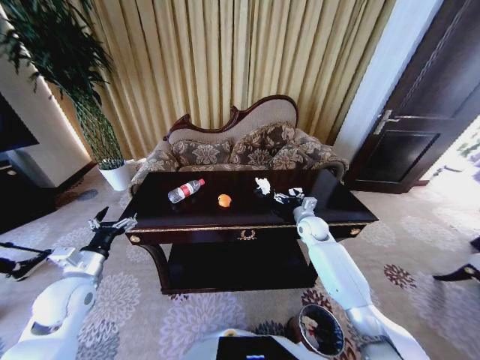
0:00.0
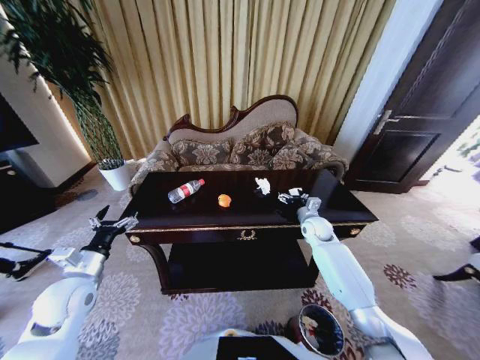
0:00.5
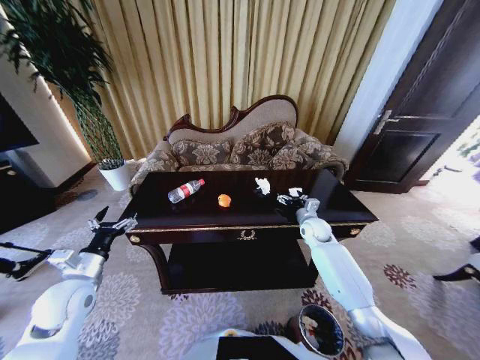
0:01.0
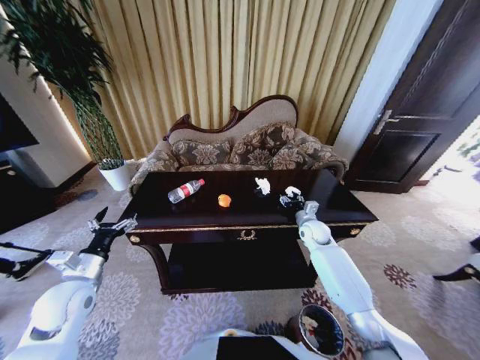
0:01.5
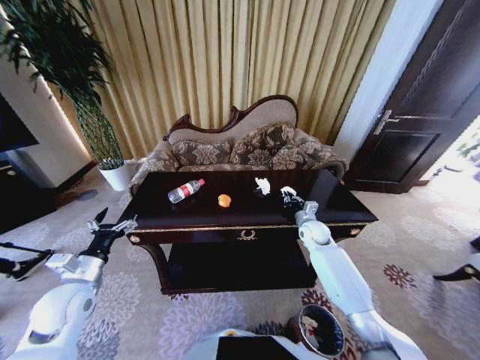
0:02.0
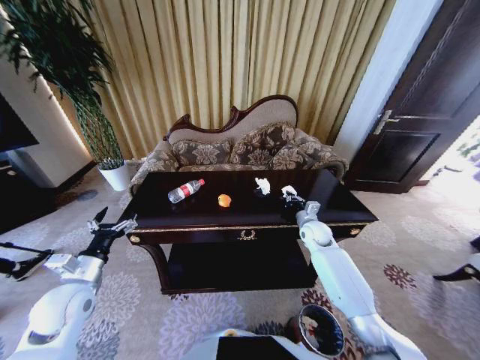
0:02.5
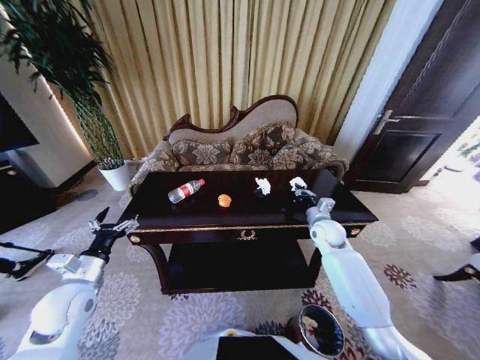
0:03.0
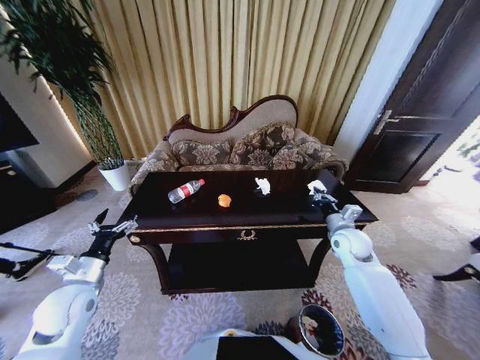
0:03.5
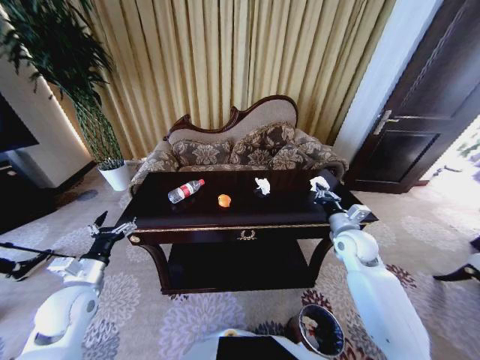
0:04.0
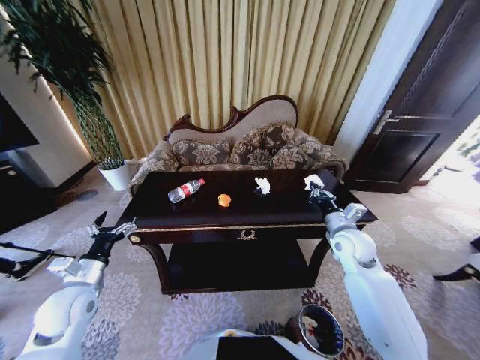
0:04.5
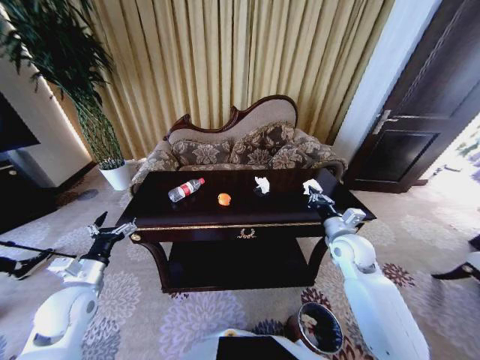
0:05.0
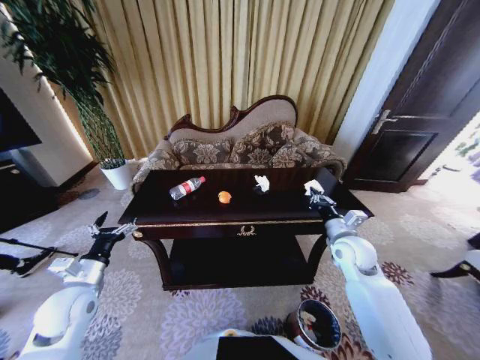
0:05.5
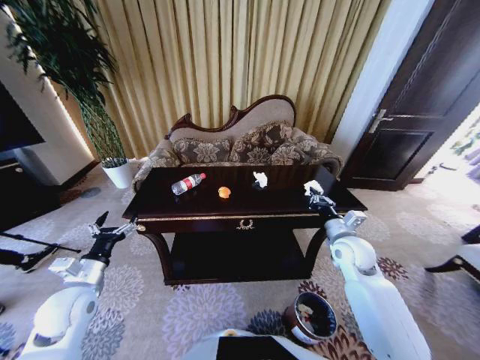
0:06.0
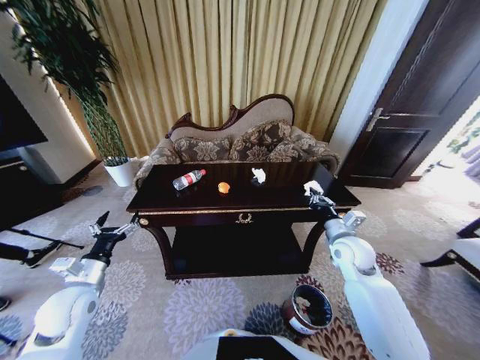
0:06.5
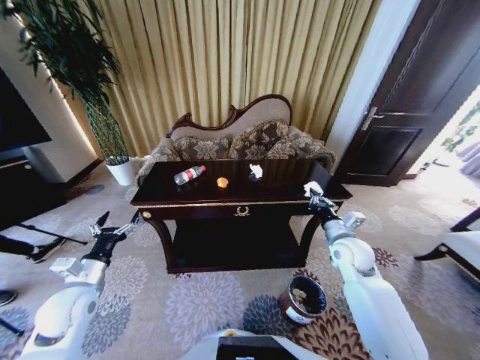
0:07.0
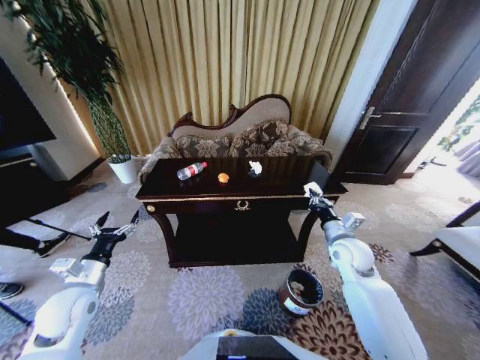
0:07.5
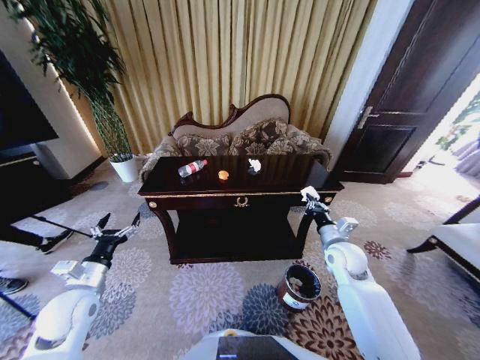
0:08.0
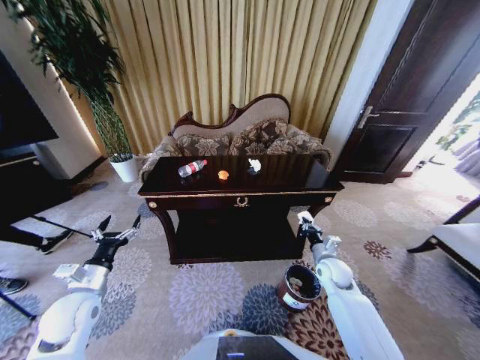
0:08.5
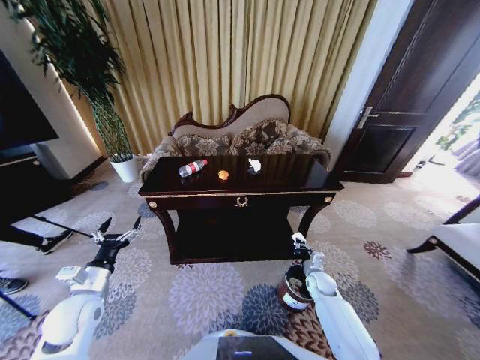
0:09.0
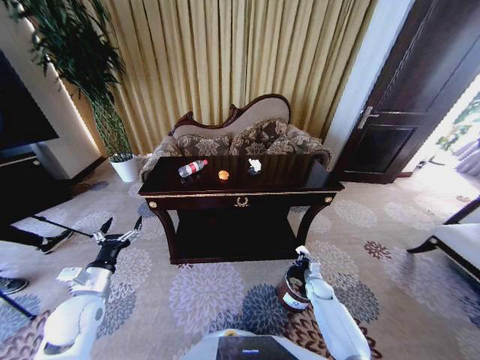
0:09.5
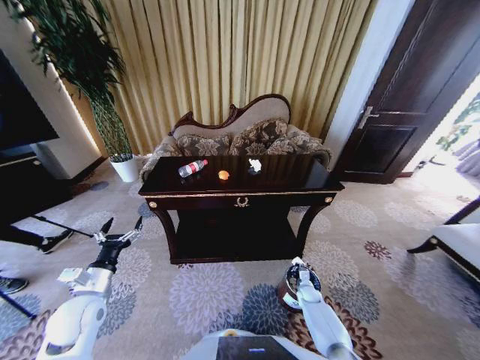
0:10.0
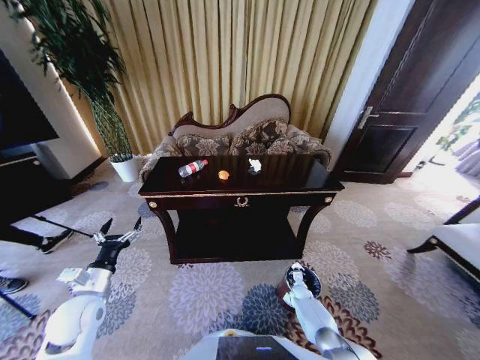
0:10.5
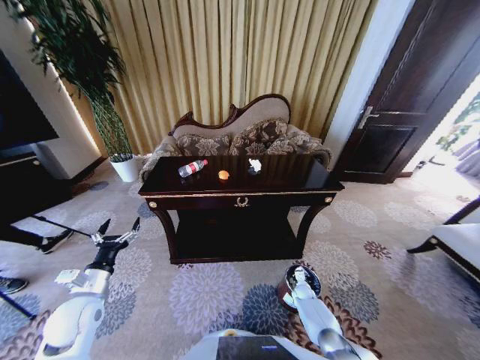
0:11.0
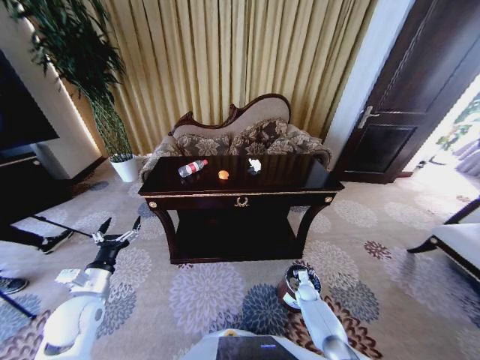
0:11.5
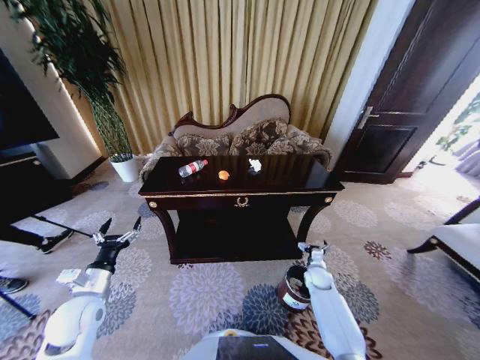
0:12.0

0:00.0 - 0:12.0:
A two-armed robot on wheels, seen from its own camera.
Task of the whole recording: Move to the front of the table and place the trash on the table into the trash bin.
0:00.0 - 0:02.0: The right gripper closes.
0:02.0 - 0:04.0: The right gripper goes some 15 cm backward and upward.
0:08.0 - 0:10.0: The right gripper heads downward, covering approximately 35 cm.
0:10.0 - 0:12.0: The right gripper is displaced upward by roughly 15 cm, and opens up.

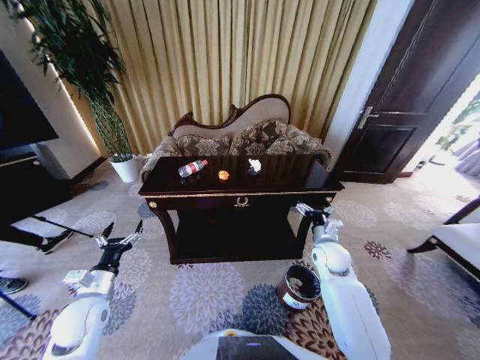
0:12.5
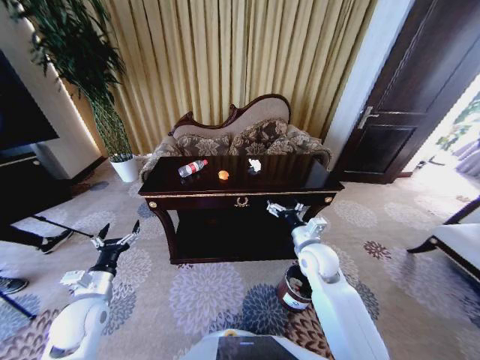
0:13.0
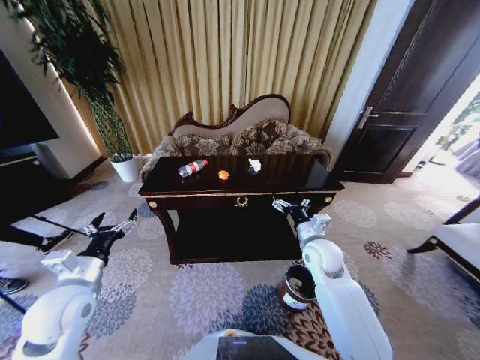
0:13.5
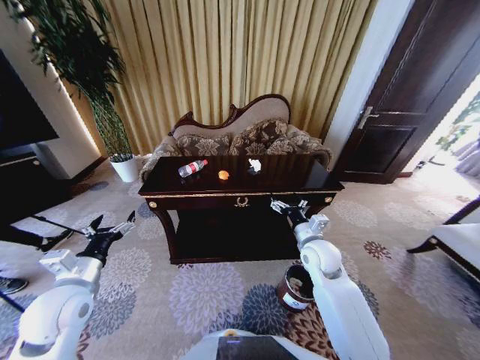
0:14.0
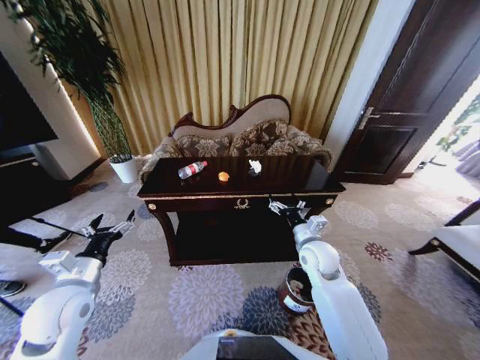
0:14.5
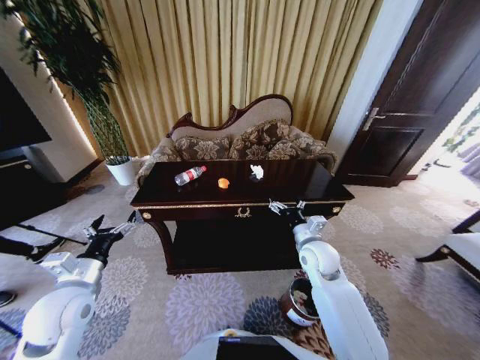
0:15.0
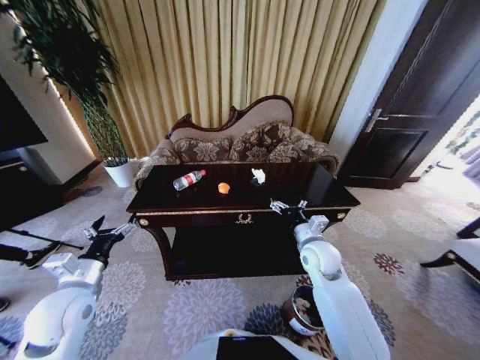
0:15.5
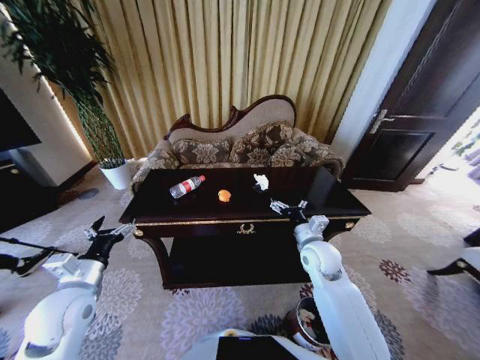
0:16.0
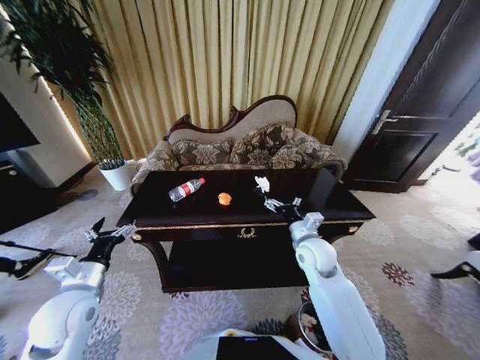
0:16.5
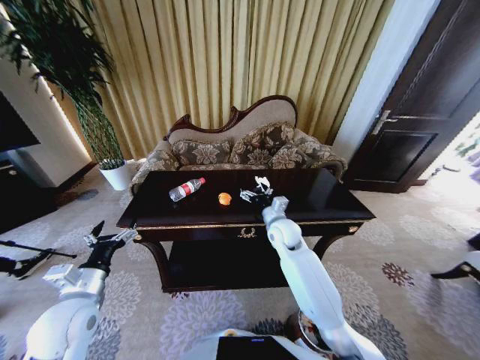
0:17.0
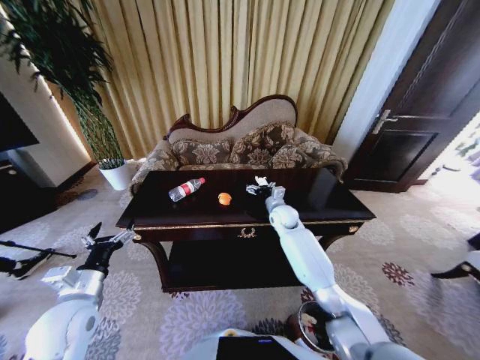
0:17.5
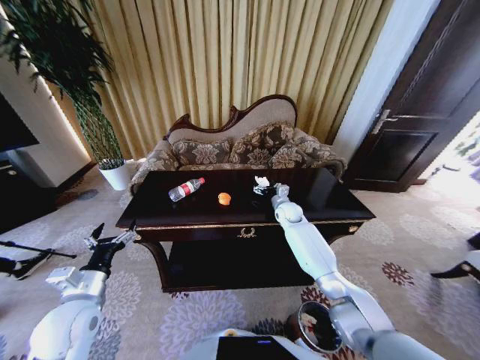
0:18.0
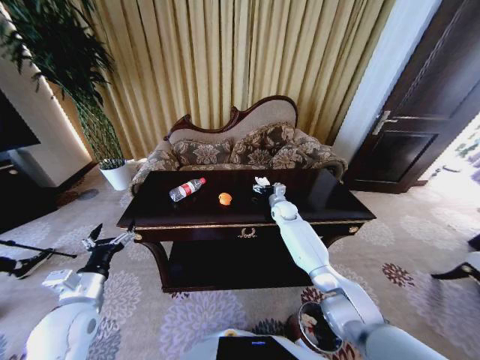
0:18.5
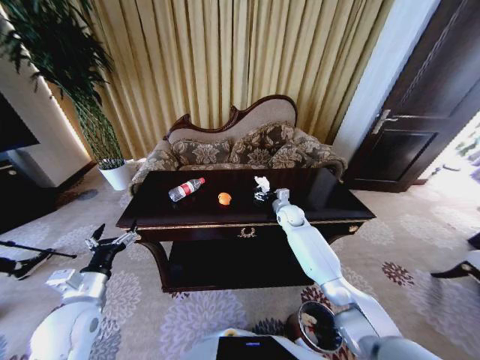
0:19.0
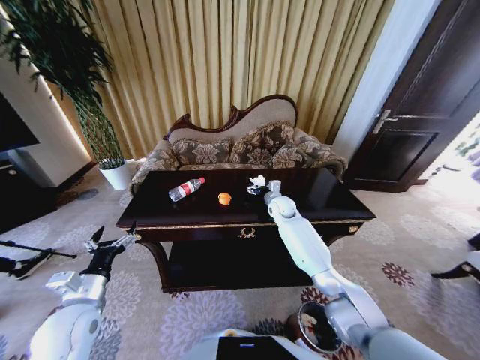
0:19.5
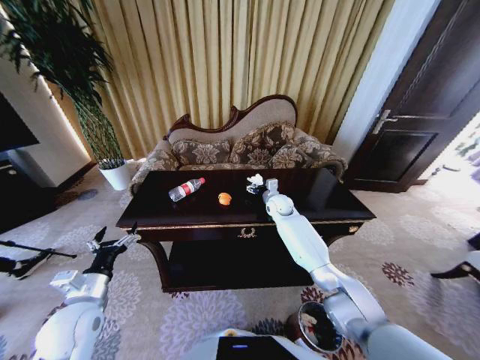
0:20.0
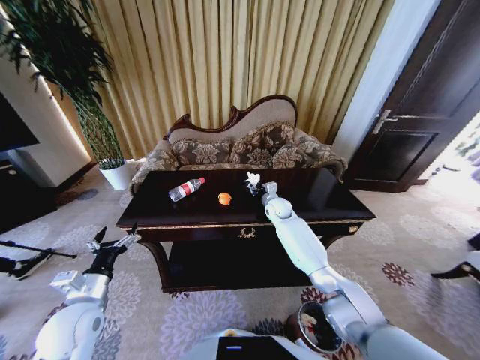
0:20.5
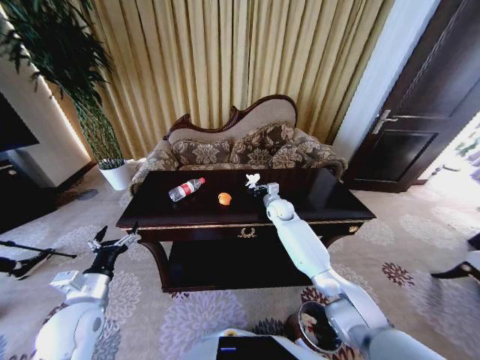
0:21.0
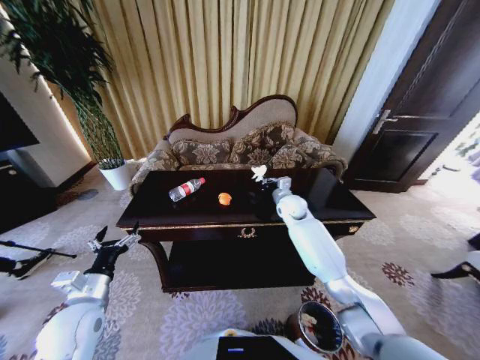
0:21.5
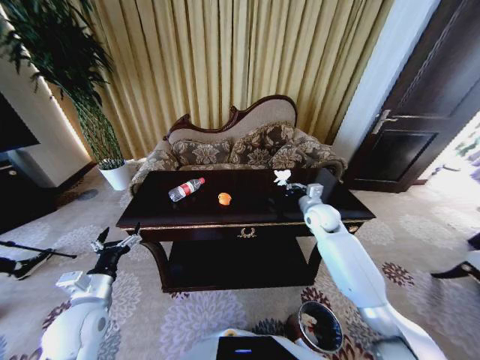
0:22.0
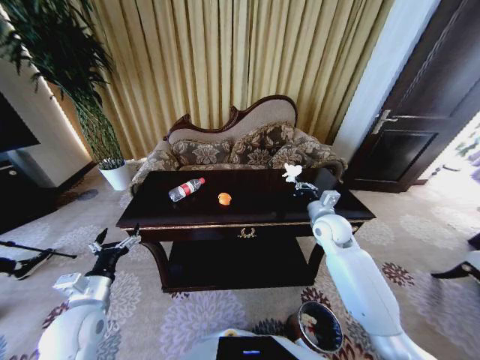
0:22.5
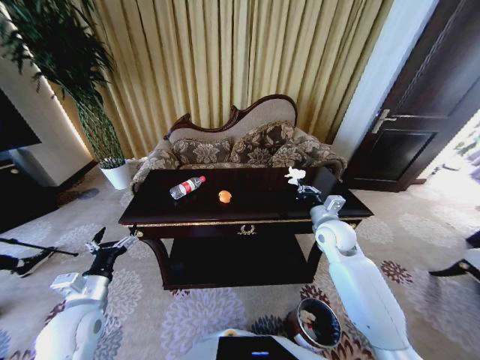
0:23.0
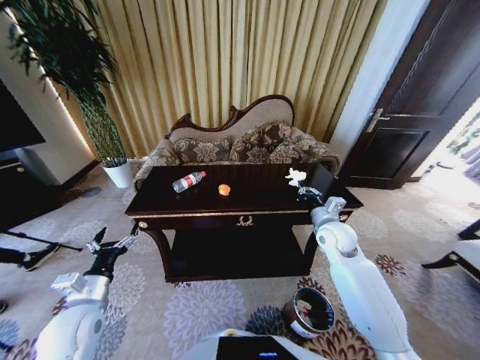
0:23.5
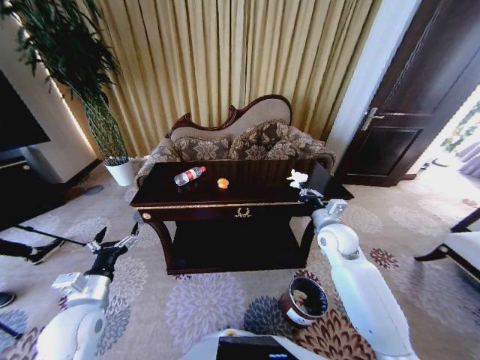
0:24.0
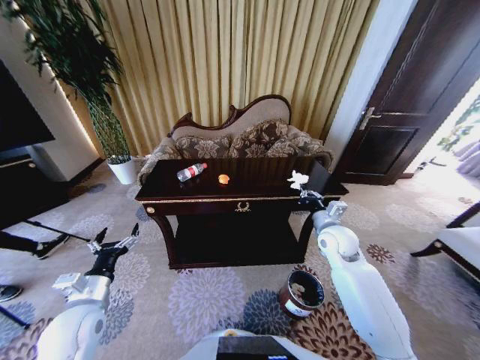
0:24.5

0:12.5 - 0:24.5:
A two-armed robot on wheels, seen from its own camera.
Task of the whole recording: Move to the front of the table and place the trash on the table into the trash bin.
0:12.5 - 0:14.5: The left gripper shifts approximately 10 cm upward. The right gripper goes about 5 cm to the left.
0:16.5 - 0:18.5: The right gripper travels forward by some 20 cm.
0:18.5 - 0:20.5: The right gripper closes.
0:20.5 - 0:22.5: The right gripper shifts approximately 20 cm backward, to the right and upward, and closes.

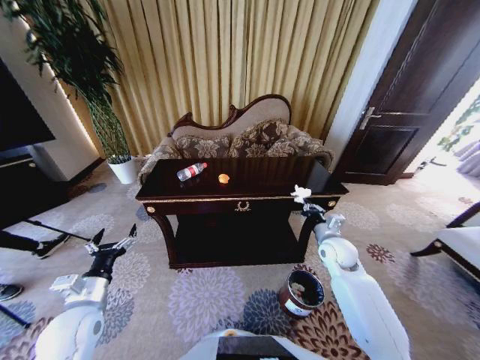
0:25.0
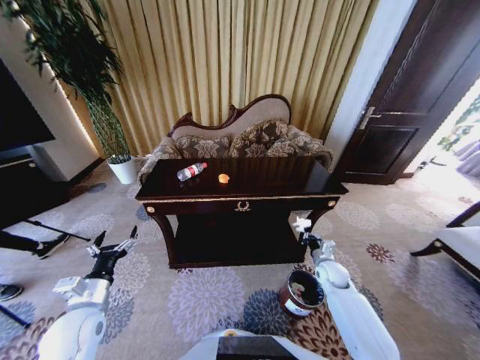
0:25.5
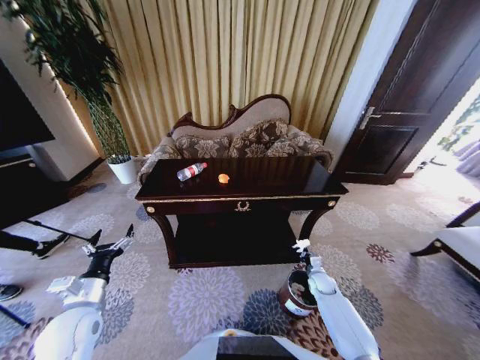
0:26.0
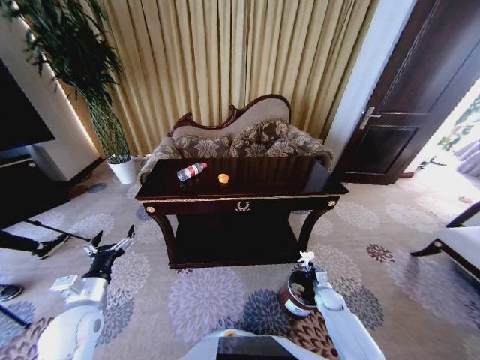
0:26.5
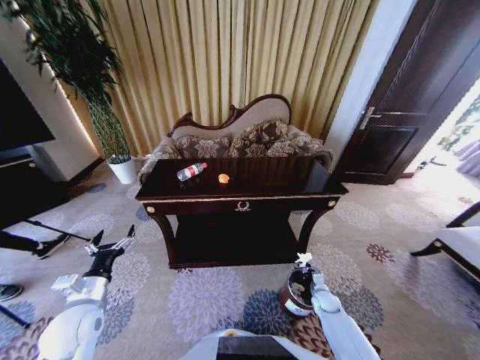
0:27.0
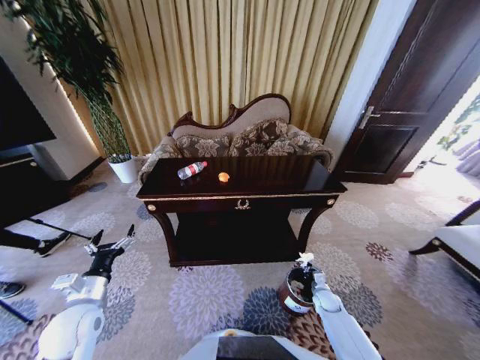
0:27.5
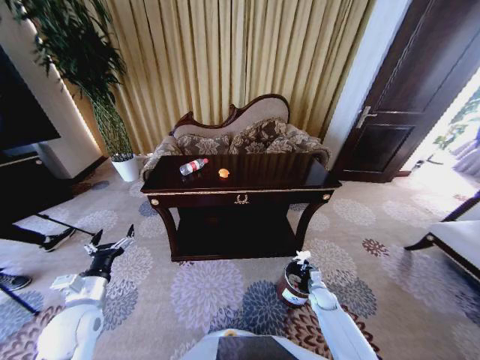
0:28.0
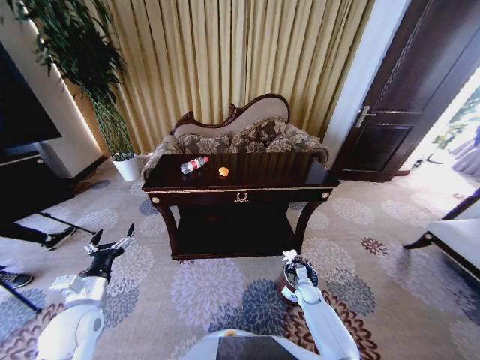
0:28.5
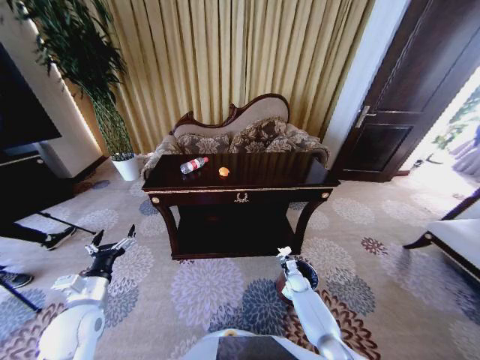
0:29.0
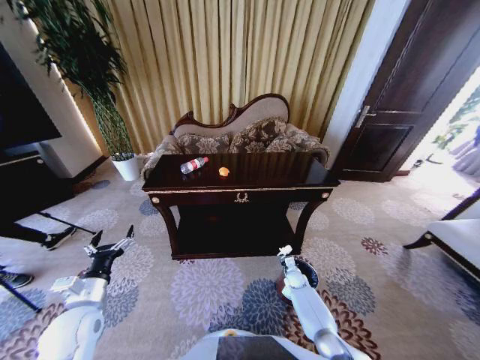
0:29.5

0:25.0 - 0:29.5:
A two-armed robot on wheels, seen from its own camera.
Task of the whole recording: Move to the front of the table and place the trash on the table into the trash bin.
0:25.0 - 0:27.0: The right gripper heads downward, covering roughly 25 cm.
0:27.0 - 0:29.5: The right gripper heads forward and to the left, covering some 10 cm.
